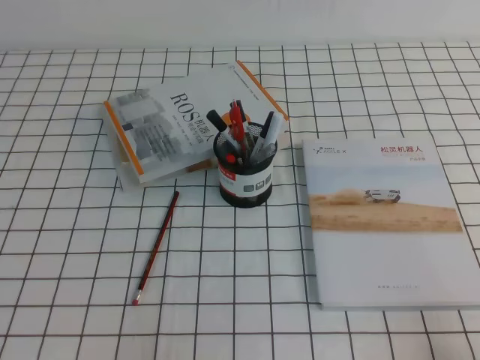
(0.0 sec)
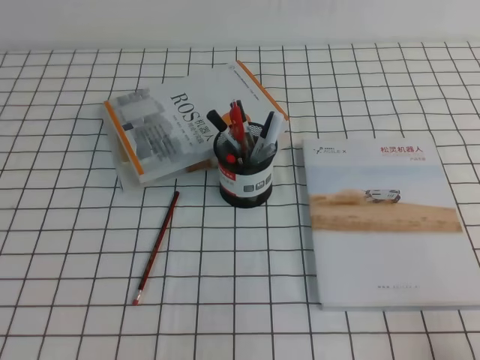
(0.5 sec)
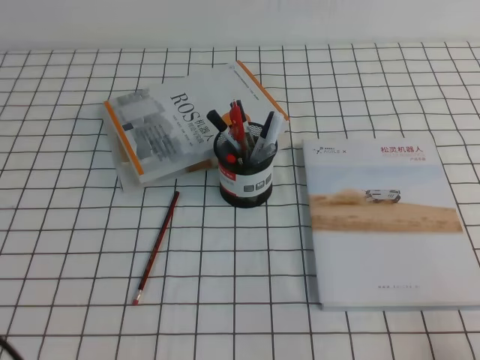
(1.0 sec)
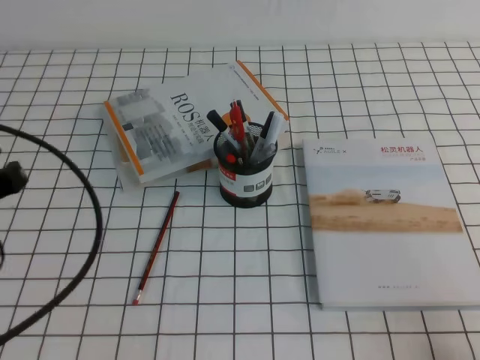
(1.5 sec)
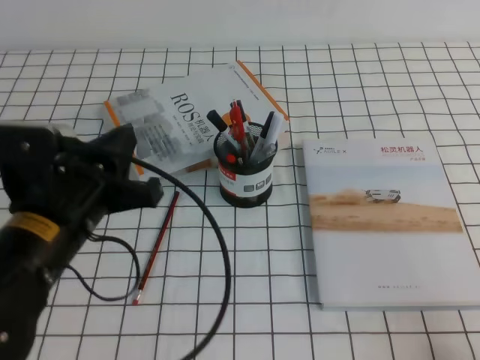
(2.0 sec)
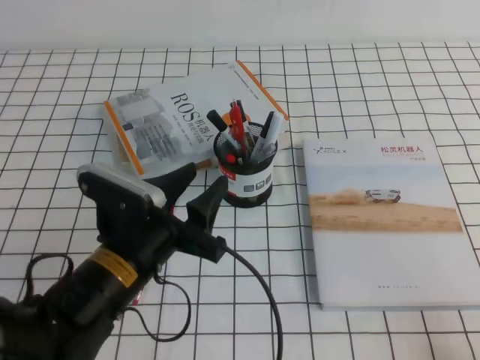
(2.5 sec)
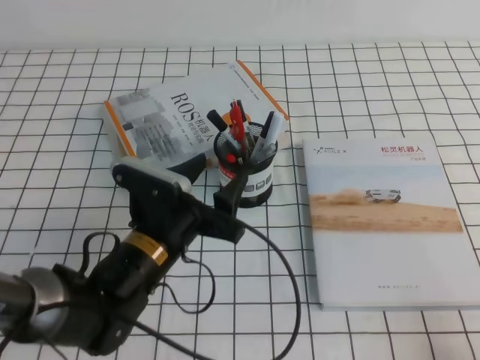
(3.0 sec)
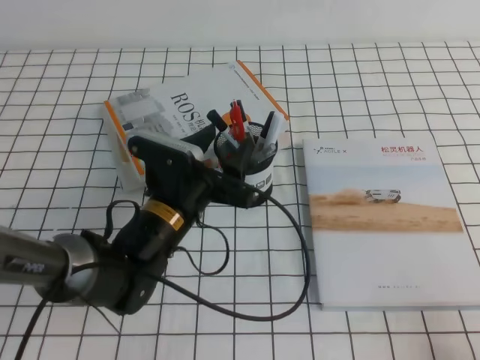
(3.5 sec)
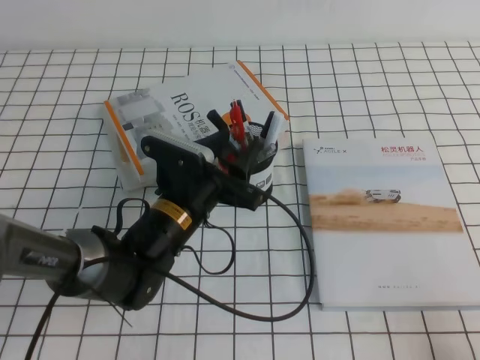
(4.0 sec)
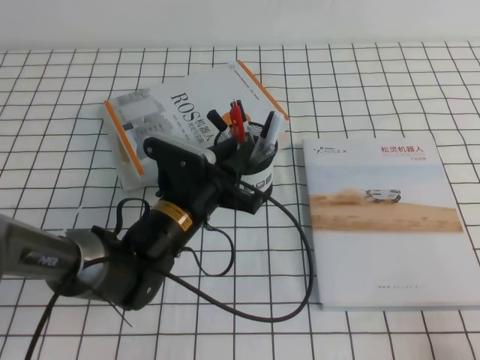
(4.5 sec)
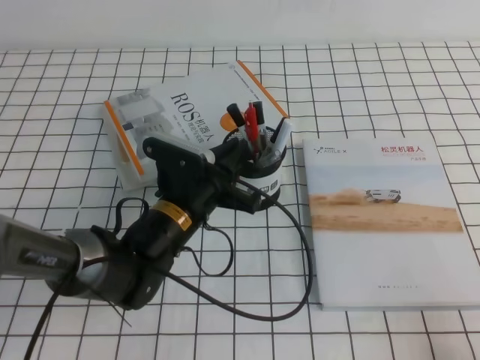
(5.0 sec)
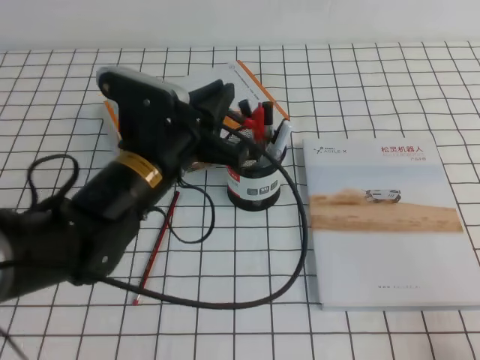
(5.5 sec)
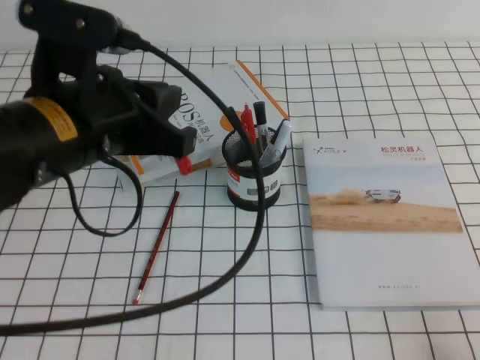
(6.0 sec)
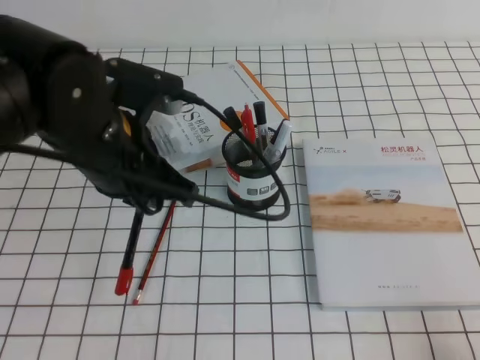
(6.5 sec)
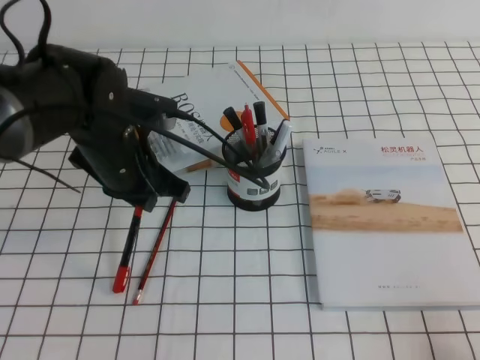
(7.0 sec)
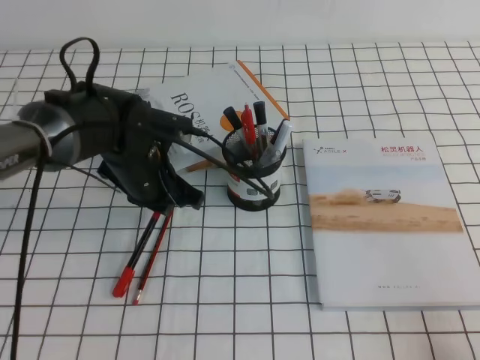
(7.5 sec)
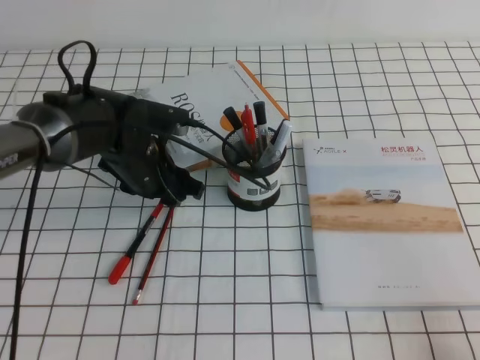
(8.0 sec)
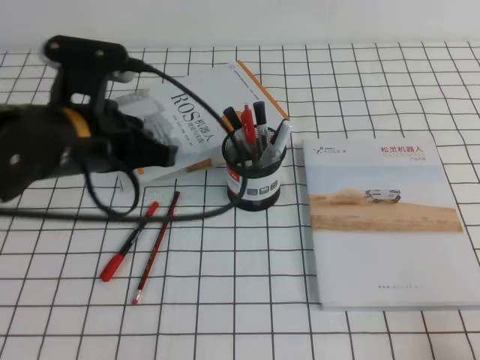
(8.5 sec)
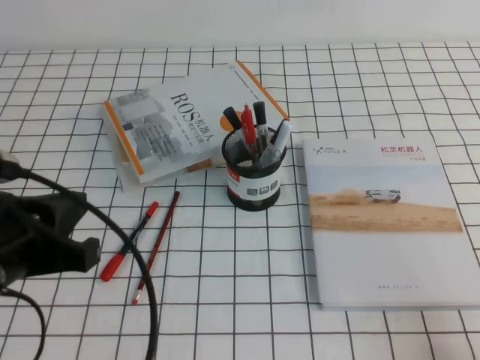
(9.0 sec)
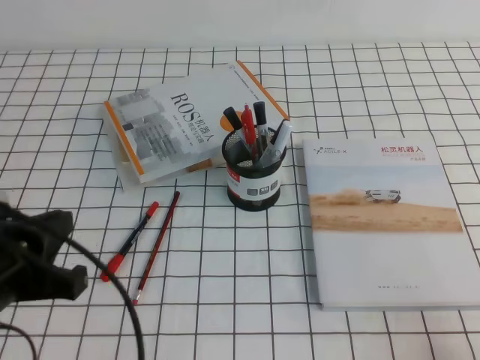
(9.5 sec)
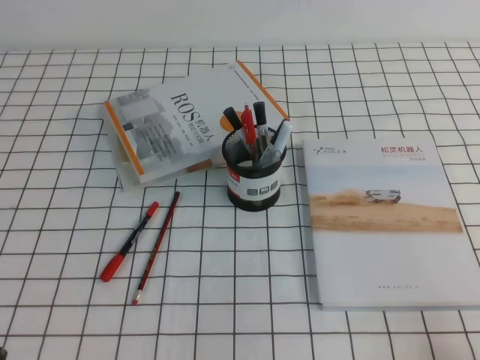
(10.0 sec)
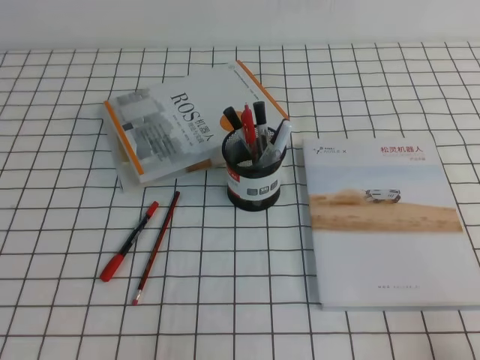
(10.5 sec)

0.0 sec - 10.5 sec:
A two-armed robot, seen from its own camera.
Step, 0.0 sec - 10.5 sec: Pick up the pen from the pen holder.
0.0 sec - 2.0 sec: The left gripper shifts approximately 20 cm forward, to the right and upward.
2.0 sec - 4.0 sec: The left gripper heads downward, to the right and forward, covering about 15 cm, and opens its fingers.
4.0 sec - 6.5 sec: The left gripper is displaced upward by about 15 cm, and closes its fingers.
6.5 sec - 8.5 sec: The left gripper reaches about 10 cm downward, then returns, and opens and closes again.
8.5 sec - 10.5 sec: The left gripper travels backward, to the left and downward by some 30 cm.
